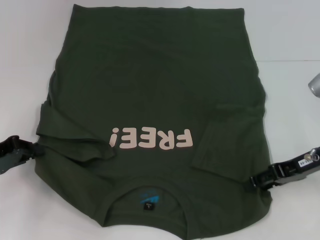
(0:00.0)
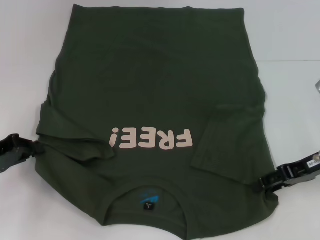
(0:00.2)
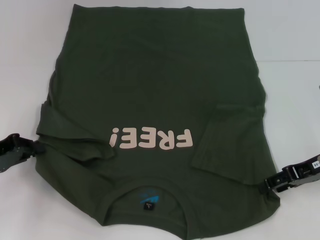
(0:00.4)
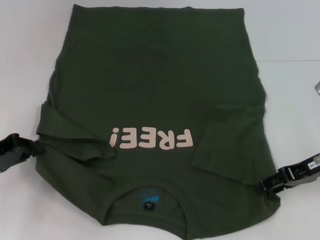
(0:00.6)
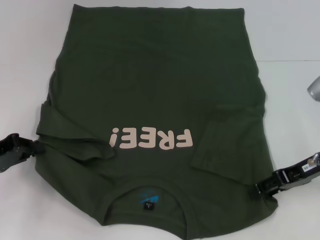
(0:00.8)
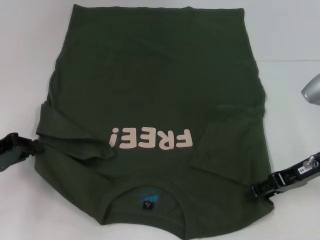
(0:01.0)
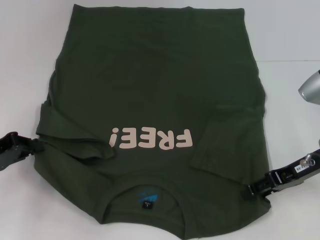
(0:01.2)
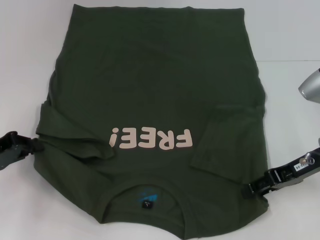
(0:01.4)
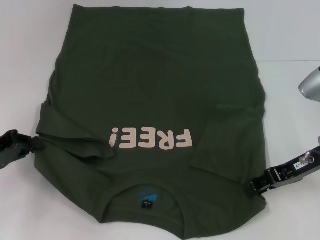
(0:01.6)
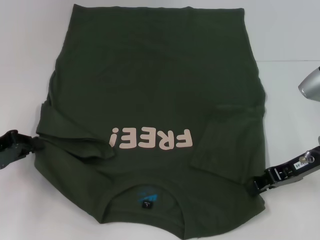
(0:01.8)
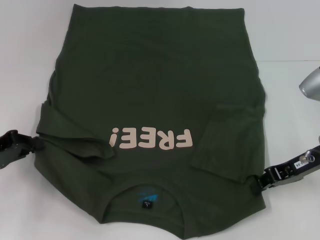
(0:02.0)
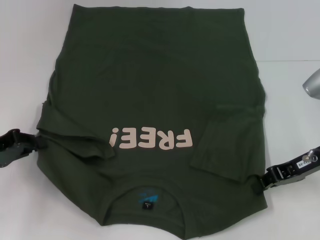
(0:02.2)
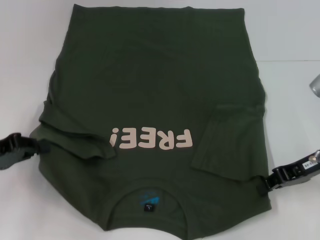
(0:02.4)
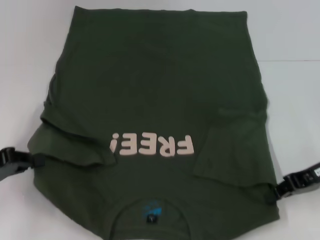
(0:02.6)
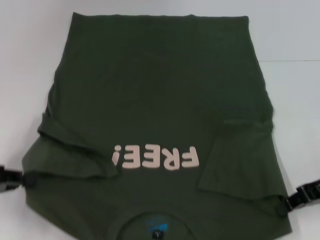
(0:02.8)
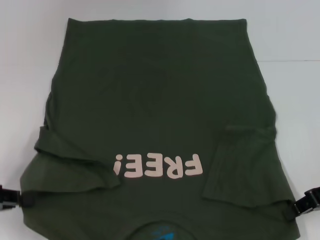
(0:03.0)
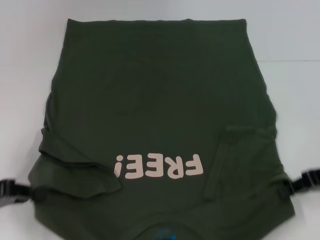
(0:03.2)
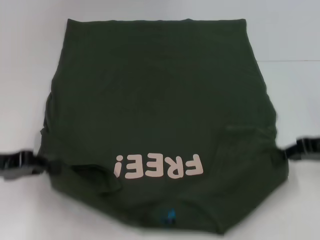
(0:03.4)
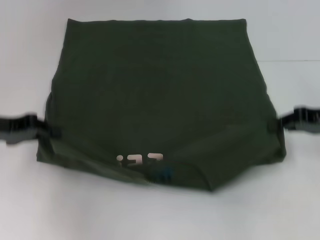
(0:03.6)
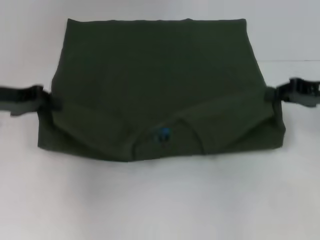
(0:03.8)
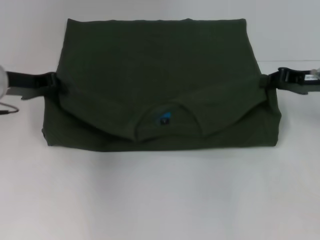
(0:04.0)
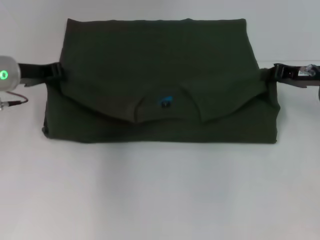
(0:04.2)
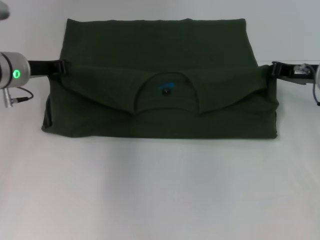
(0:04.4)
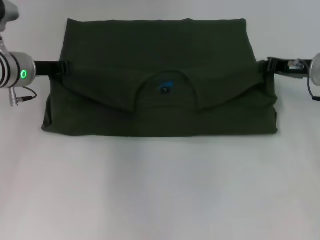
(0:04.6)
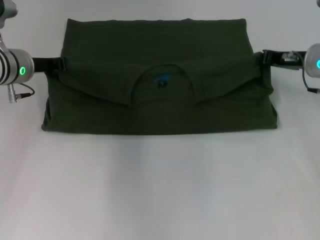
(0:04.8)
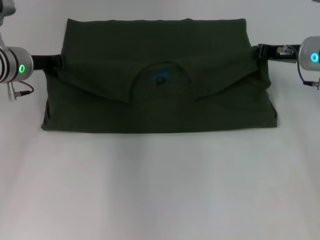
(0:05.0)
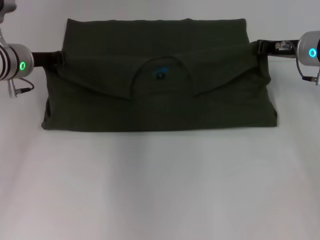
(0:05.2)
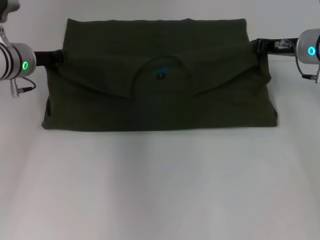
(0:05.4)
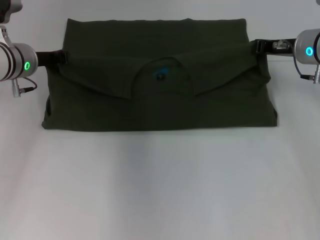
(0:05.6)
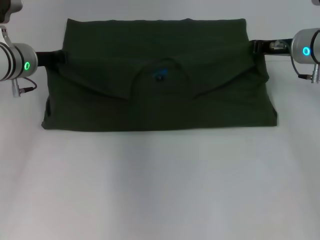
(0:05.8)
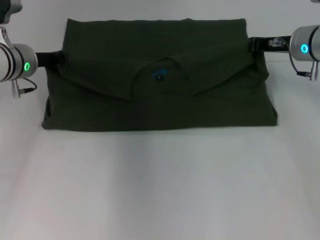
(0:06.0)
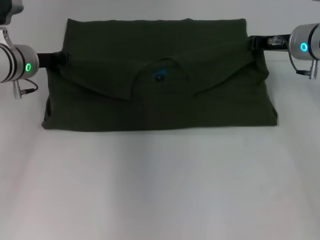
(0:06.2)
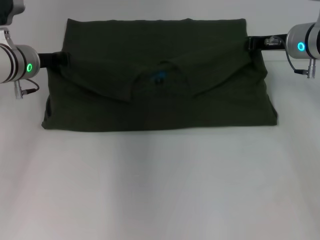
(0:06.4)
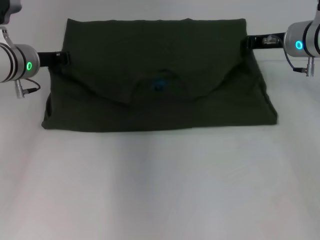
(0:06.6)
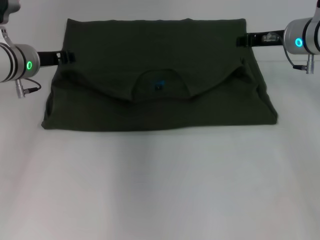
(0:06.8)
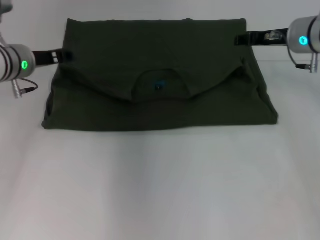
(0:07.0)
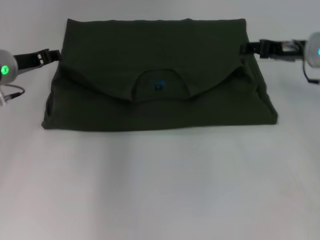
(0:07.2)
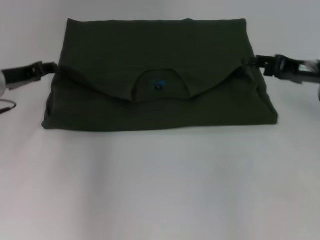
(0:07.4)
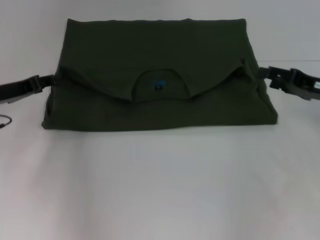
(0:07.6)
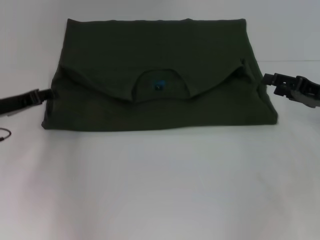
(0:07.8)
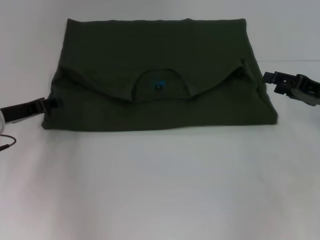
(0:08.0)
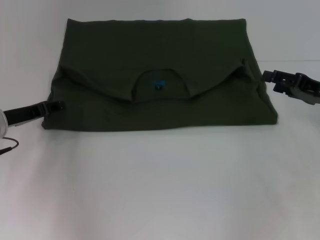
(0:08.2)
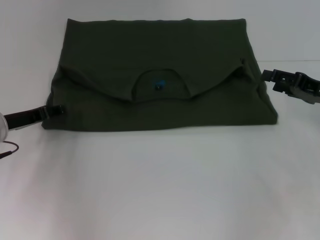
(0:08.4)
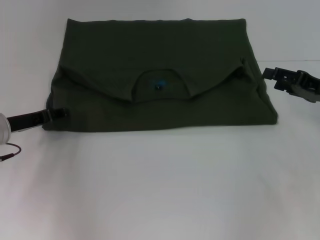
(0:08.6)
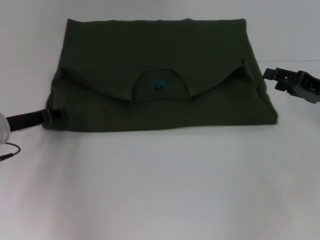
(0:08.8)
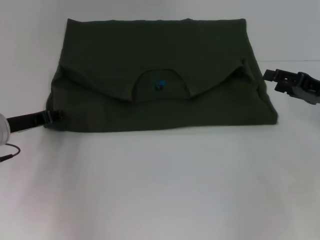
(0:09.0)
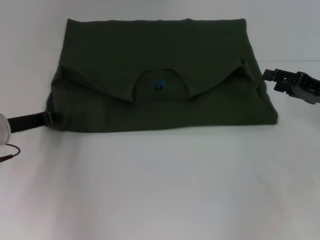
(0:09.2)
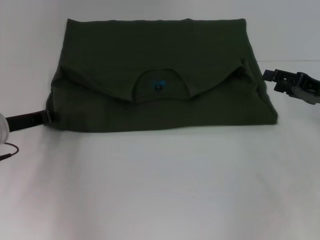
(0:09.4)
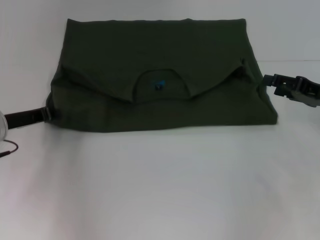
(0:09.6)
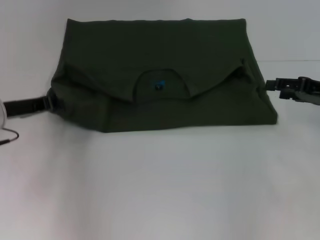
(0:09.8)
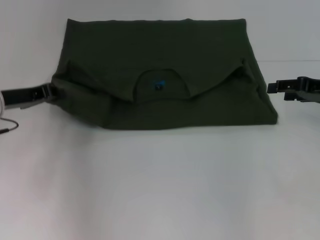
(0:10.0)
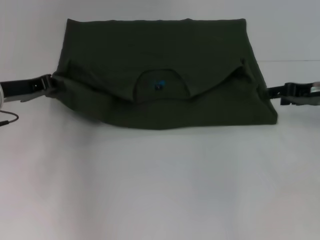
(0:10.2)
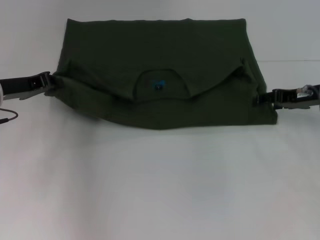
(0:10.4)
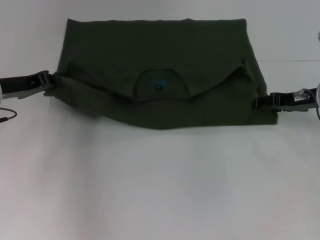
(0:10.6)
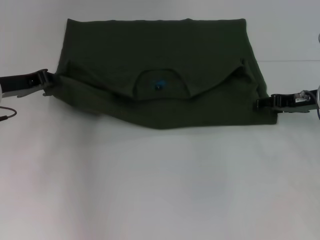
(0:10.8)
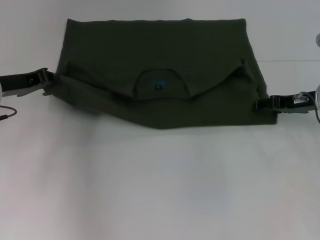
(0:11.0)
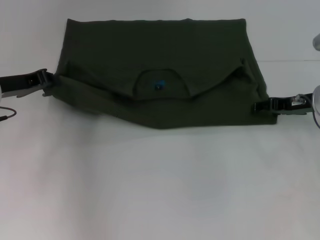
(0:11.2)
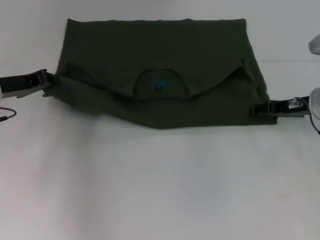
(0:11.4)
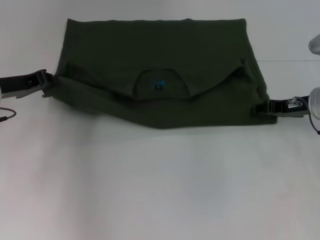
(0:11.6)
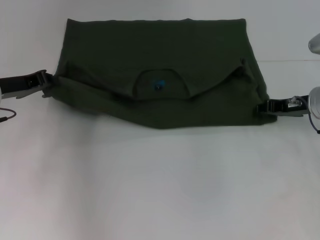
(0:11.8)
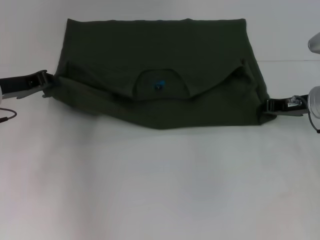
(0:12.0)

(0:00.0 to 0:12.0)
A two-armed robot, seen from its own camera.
Step, 0:00.0 - 0:02.4: Grab the bottom right corner with your right hand.
Step, 0:02.6 - 0:06.8: Fold the clothes with your left hand.
Step, 0:02.6 - 0:06.8: Fold the clothes with your right hand.
0:00.0 - 0:01.6: There are only small adjustments of the grippers.
0:01.6 - 0:03.0: The left gripper is displaced backward by about 5 cm; the right gripper ends up about 5 cm from where it was, and closes its fingers.
0:03.0 - 0:04.4: The right gripper goes about 10 cm forward. The left gripper is displaced forward and to the right by approximately 25 cm.
0:04.4 - 0:06.0: The right gripper ends up roughly 5 cm from where it was.
0:06.0 - 0:07.6: The right gripper moves backward and to the right, about 15 cm, and opens. The left gripper shifts some 10 cm backward and to the left, and opens up.
0:07.6 - 0:09.0: The grippers move only a little.
0:09.0 - 0:10.4: The left gripper heads upward, covering about 5 cm, and closes. The right gripper travels forward by roughly 5 cm.
0:10.4 - 0:12.0: The right gripper closes.

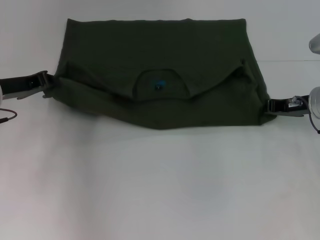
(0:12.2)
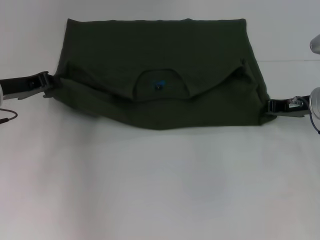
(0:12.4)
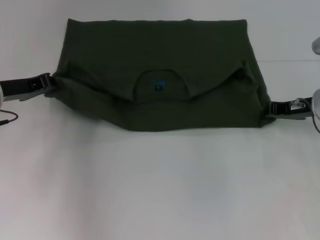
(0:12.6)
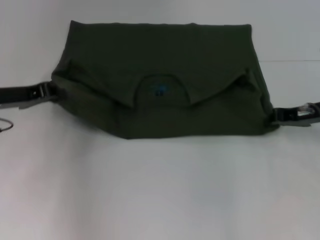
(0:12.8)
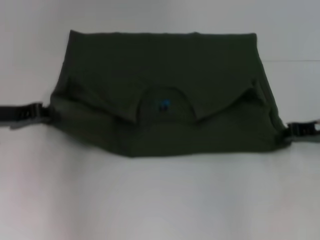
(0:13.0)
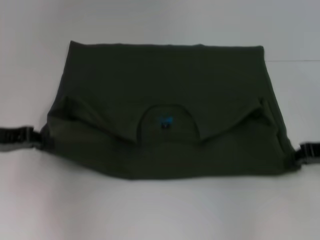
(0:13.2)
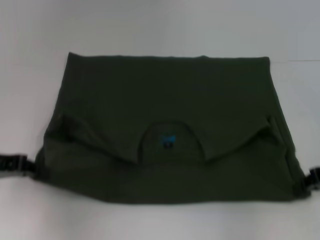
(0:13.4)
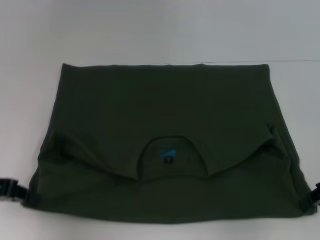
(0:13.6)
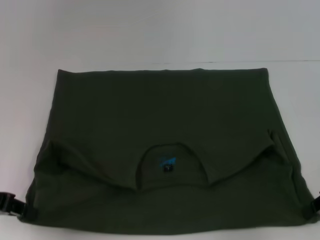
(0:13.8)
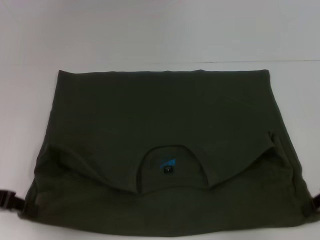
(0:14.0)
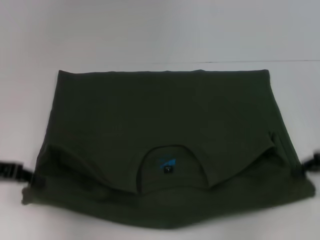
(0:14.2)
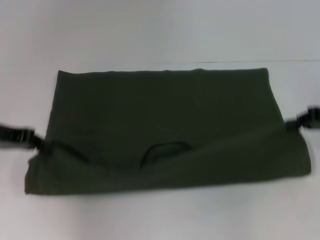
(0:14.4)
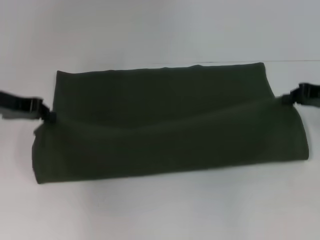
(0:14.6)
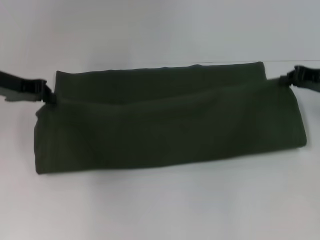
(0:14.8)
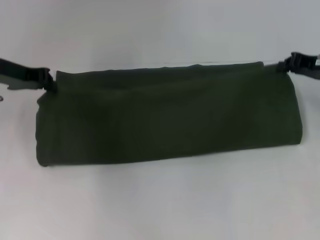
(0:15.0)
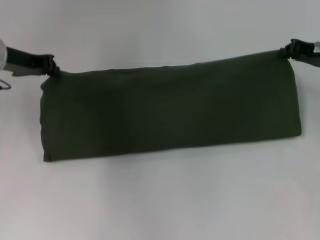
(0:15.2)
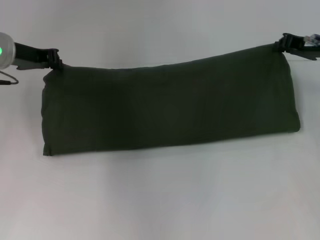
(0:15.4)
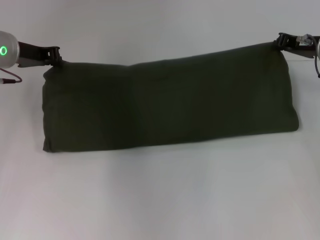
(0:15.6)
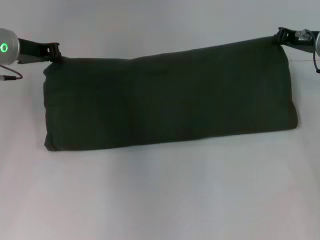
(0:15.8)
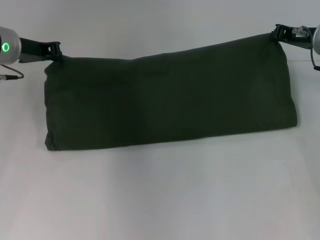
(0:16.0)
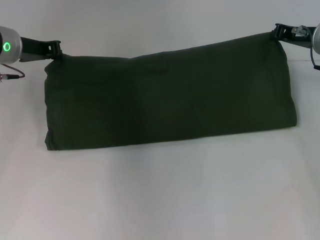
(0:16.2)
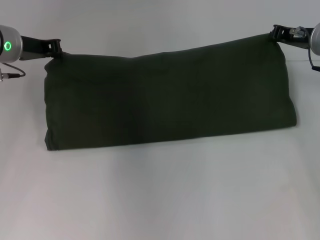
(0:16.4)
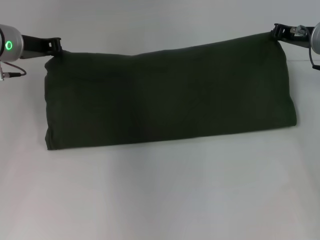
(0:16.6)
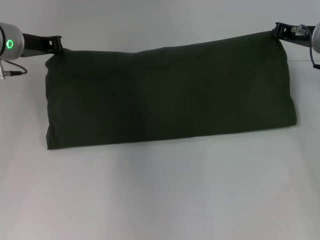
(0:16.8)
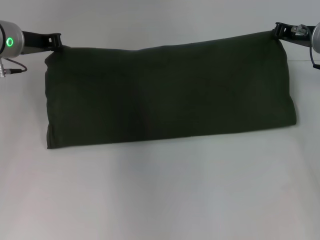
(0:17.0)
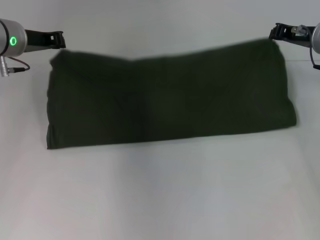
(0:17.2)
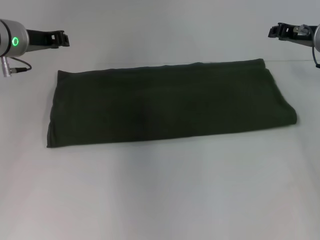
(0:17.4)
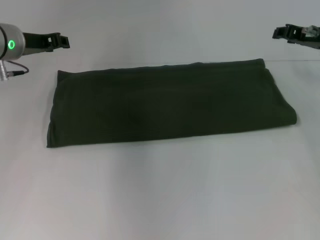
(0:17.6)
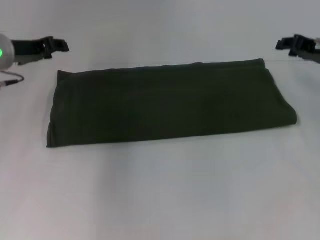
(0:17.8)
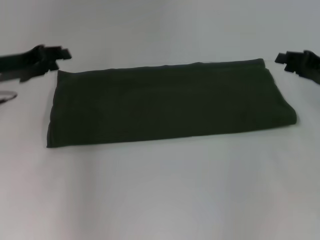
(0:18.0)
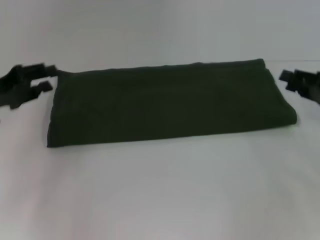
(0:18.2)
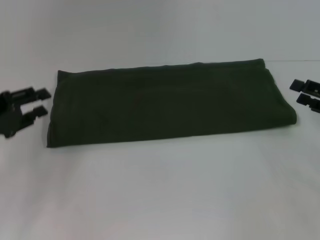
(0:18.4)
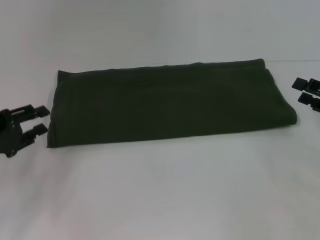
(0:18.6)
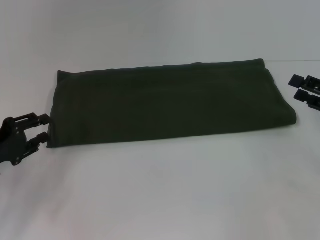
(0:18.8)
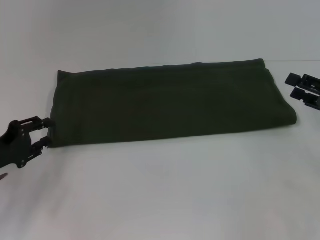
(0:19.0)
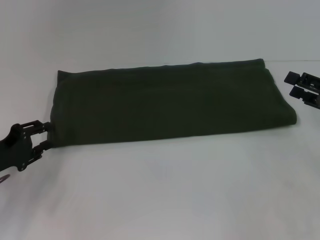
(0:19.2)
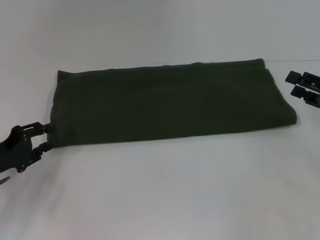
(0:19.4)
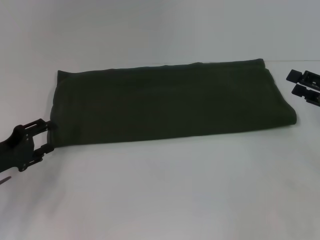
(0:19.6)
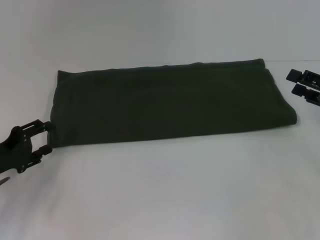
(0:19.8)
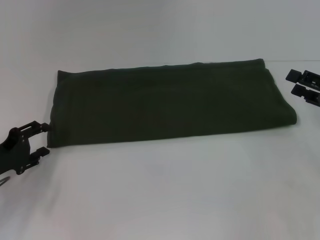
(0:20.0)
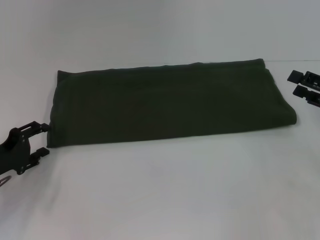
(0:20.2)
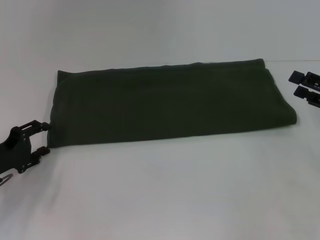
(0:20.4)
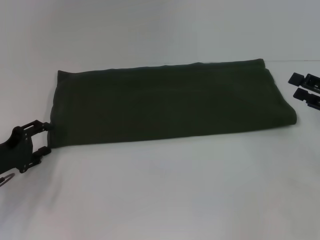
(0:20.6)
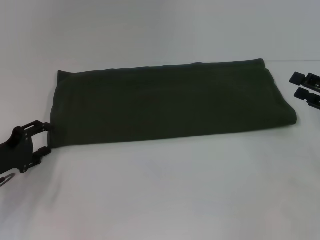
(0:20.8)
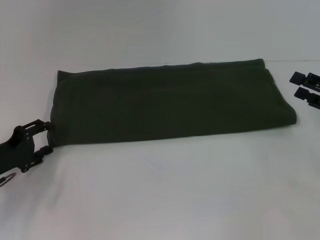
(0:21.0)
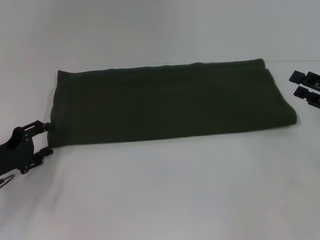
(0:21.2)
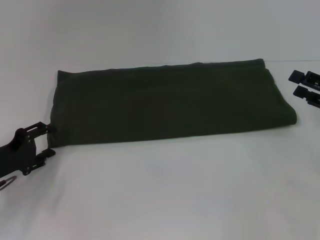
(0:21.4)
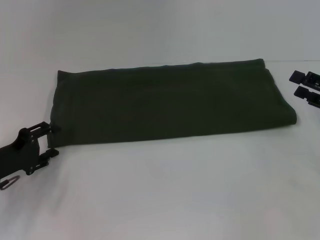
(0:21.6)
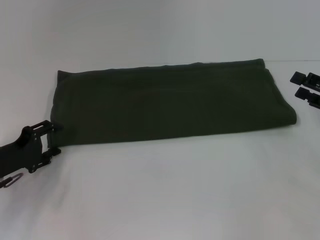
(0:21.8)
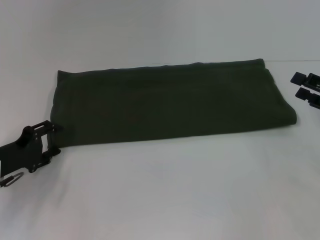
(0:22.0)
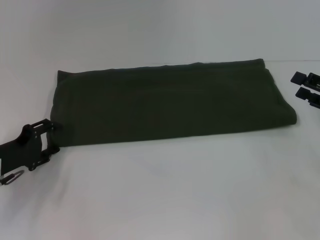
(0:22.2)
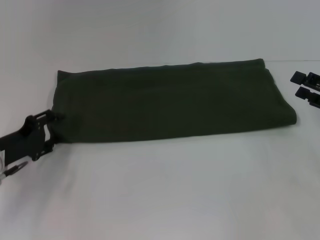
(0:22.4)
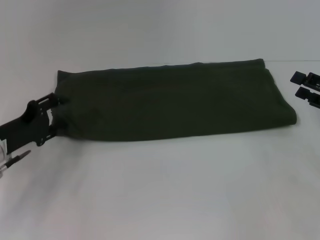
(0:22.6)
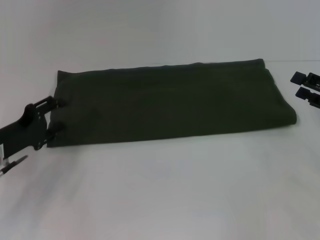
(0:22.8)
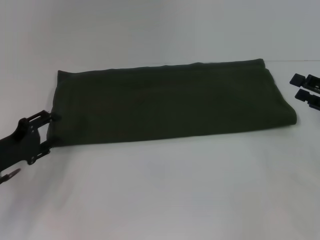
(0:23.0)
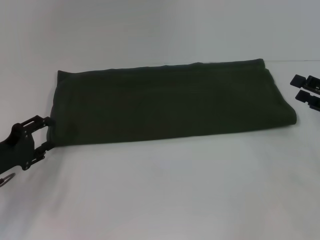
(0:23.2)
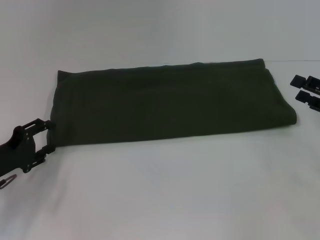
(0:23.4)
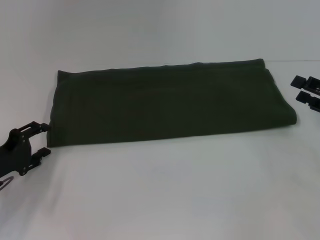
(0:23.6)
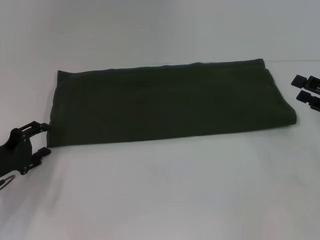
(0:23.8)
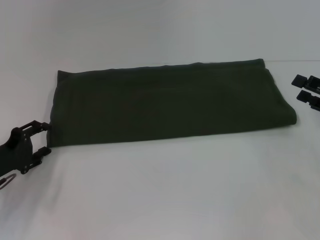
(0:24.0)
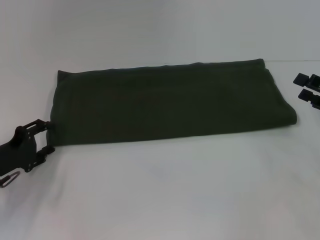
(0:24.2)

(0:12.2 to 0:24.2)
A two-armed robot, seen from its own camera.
Step, 0:13.8 - 0:17.4: Fold the clothes with your right hand.
0:12.2 - 0:13.8: The left gripper shifts approximately 10 cm backward. Meanwhile the right gripper heads backward and to the right, covering some 15 cm.
0:13.8 - 0:15.2: The left gripper moves forward, some 15 cm. The right gripper is displaced forward and upward by roughly 15 cm.
0:15.2 - 0:16.6: The grippers make only small movements.
0:16.6 - 0:18.2: The left gripper is displaced backward and to the left by some 15 cm, and opens, while the right gripper is displaced backward and to the right by approximately 15 cm, and opens up.
0:18.2 - 0:19.8: The left gripper heads downward and backward, covering about 10 cm.
0:19.8 - 0:24.2: The grippers stay close to where they were, moving slightly.
